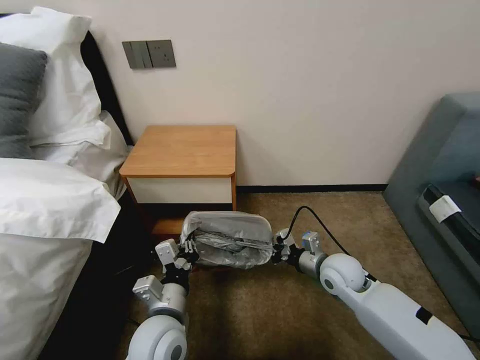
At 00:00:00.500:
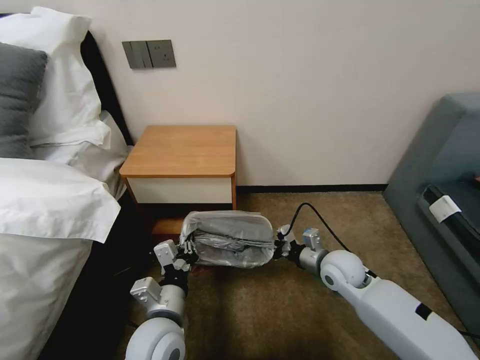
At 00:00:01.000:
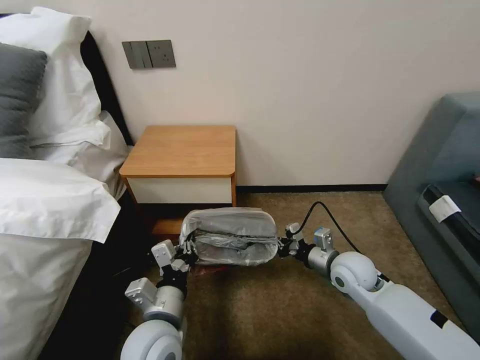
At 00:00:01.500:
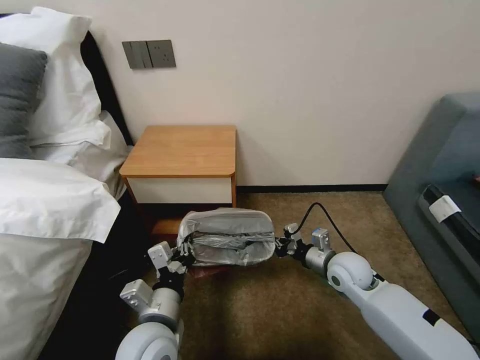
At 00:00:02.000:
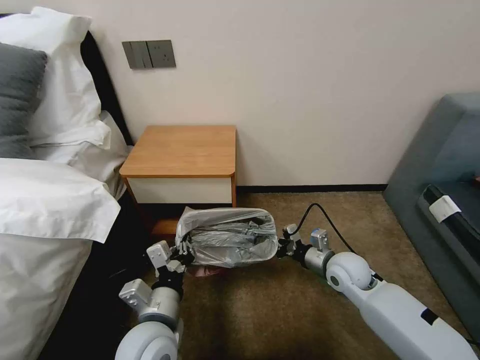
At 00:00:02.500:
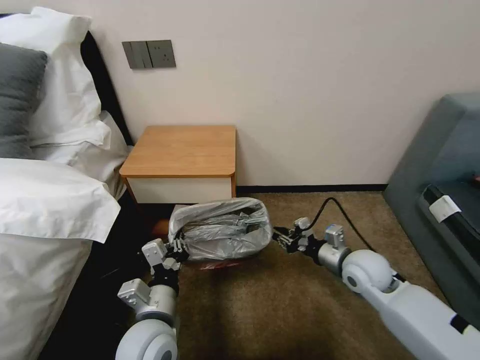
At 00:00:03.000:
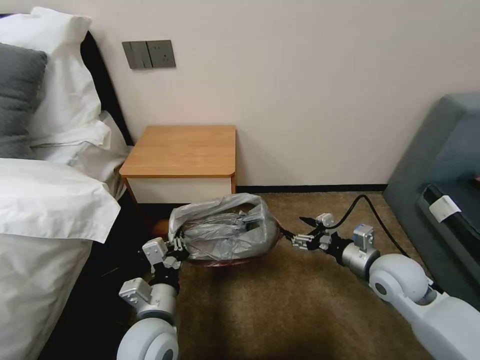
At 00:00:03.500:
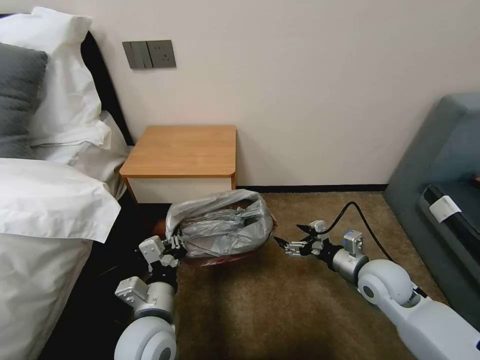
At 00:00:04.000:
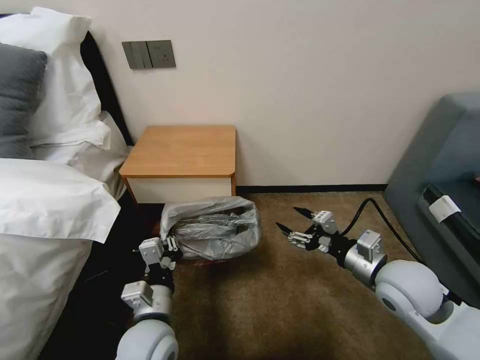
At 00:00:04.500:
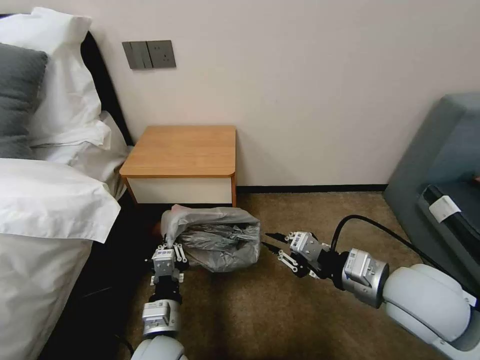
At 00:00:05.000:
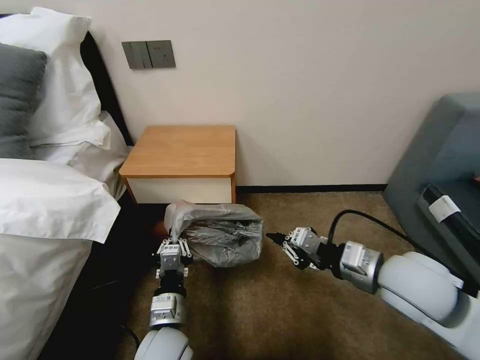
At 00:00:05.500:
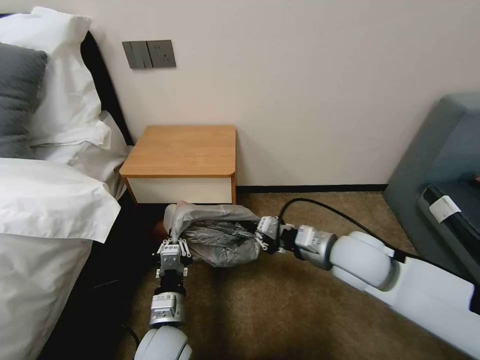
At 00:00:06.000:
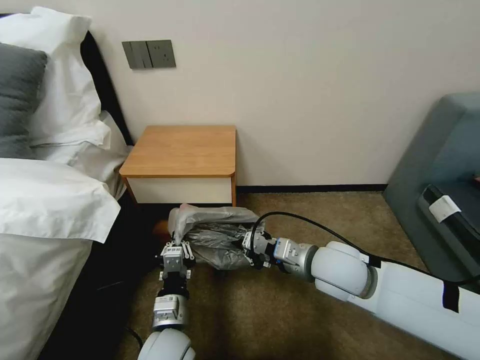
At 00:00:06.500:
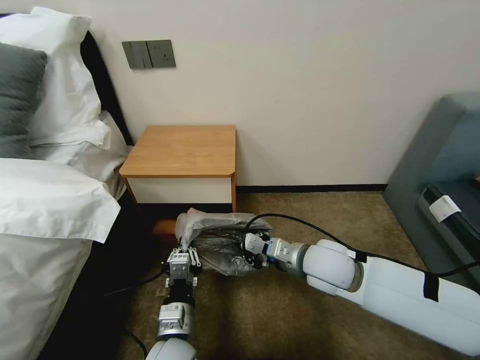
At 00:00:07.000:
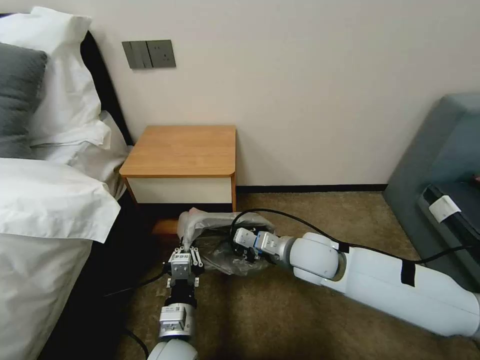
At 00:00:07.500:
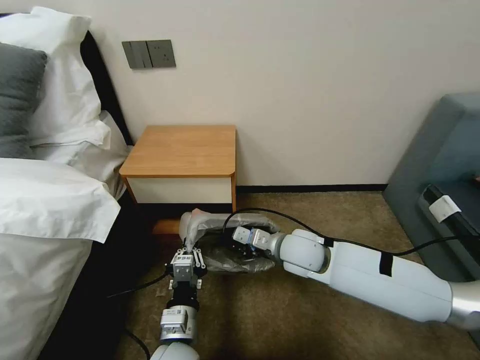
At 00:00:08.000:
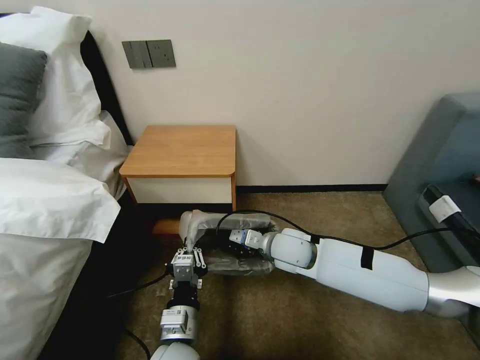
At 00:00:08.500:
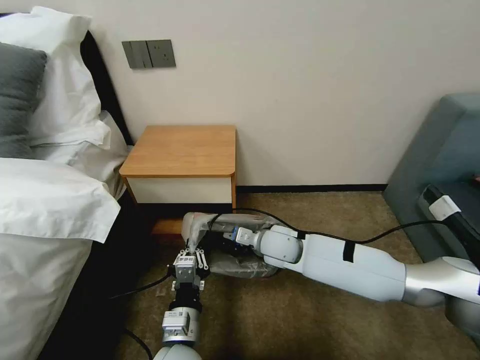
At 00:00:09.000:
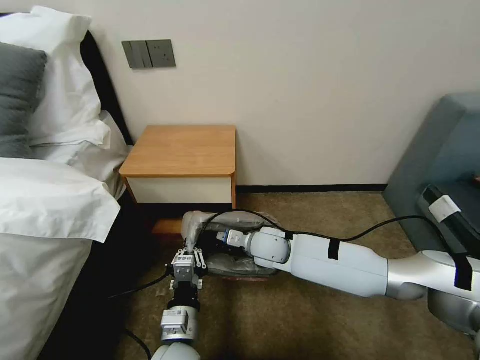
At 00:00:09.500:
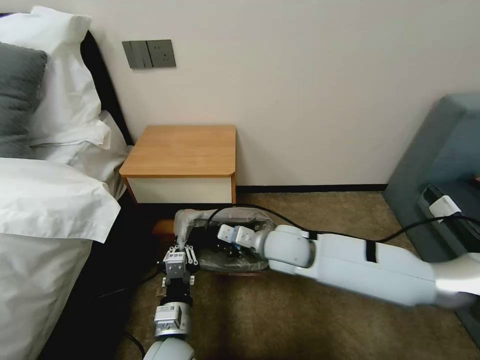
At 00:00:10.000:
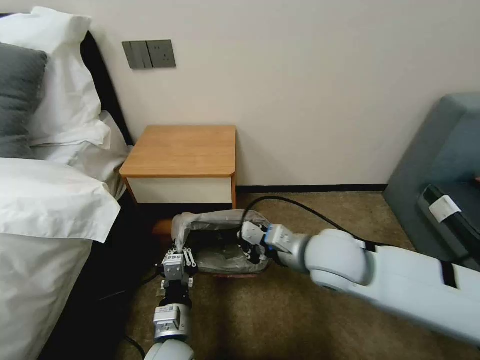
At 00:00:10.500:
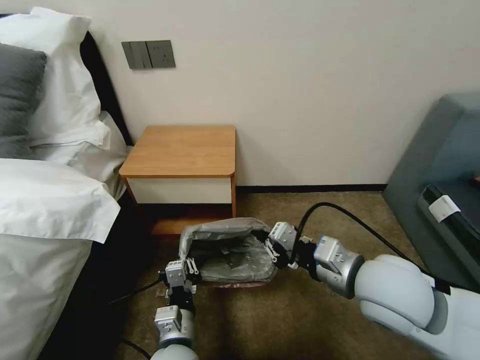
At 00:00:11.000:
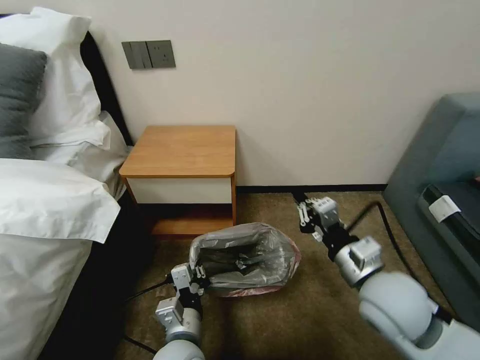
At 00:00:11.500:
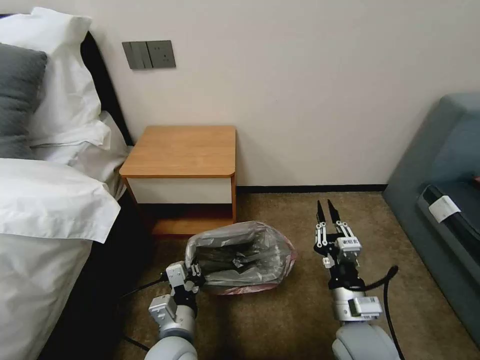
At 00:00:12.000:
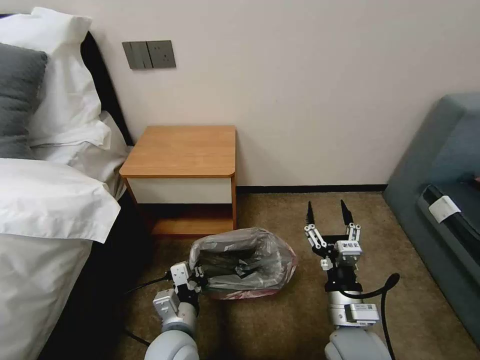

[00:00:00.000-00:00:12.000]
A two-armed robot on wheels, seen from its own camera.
Task of the whole recording: Pick up the garbage bag from the table and place it over the trash can.
00:00:00.000 to 00:00:02.000: The grippers stay close to where they were, moving slightly.
00:00:02.000 to 00:00:04.000: The right gripper is displaced upward and backward by some 15 cm, and opens its fingers.
00:00:04.000 to 00:00:06.000: The right gripper travels to the left by approximately 10 cm, and closes up. The left gripper shifts by some 5 cm.
00:00:06.000 to 00:00:08.000: The right gripper shifts approximately 10 cm forward, downward and to the left.
00:00:08.000 to 00:00:10.000: The right gripper heads upward and backward, covering some 15 cm.
00:00:10.000 to 00:00:12.000: The right gripper travels backward and downward by about 20 cm, and opens its fingers.

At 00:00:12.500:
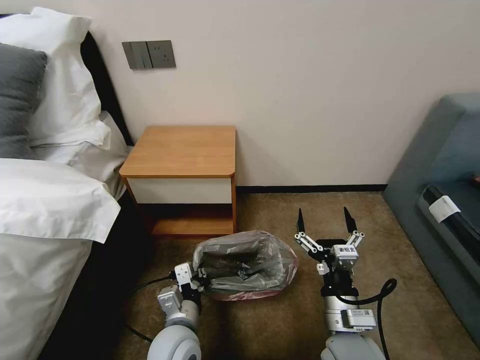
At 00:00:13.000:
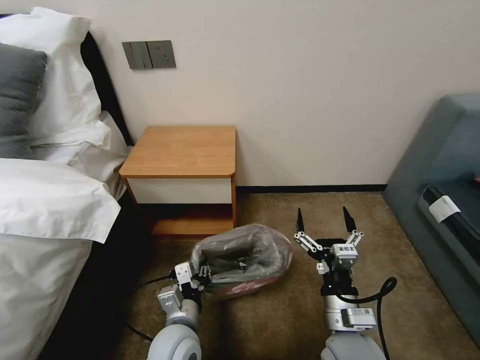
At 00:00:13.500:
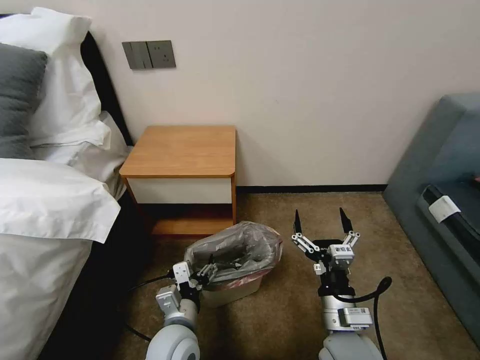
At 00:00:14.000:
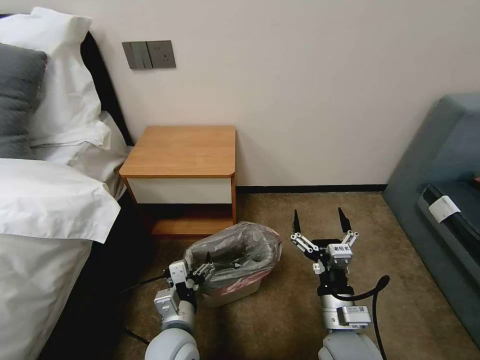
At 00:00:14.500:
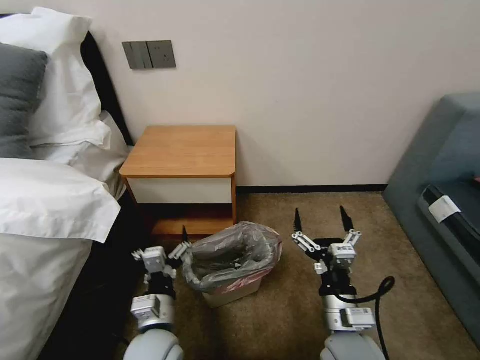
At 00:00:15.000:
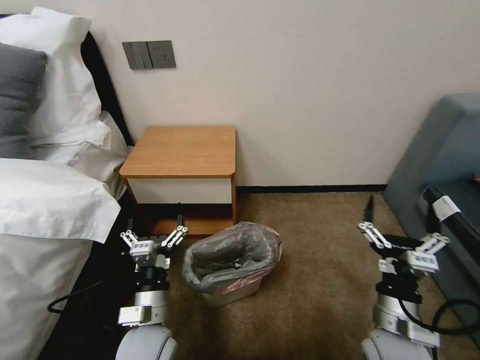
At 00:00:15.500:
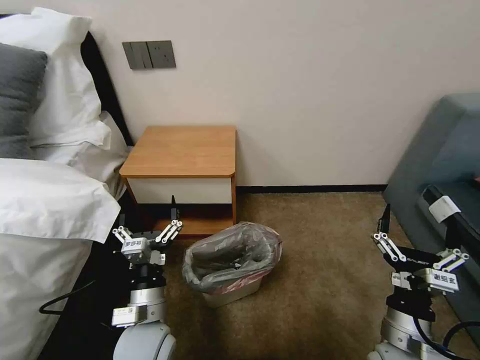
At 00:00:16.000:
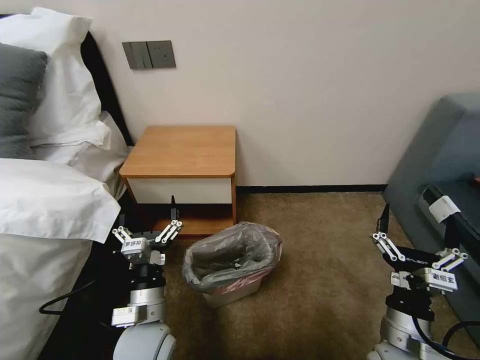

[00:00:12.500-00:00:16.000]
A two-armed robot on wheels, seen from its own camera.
Task of the whole recording: Pick up the garbage bag from the table and place it over the trash can.
00:00:12.500 to 00:00:14.500: The left gripper opens up.
00:00:14.500 to 00:00:16.000: The right gripper shifts some 10 cm to the right.

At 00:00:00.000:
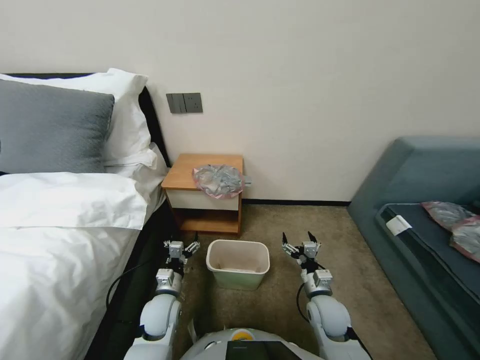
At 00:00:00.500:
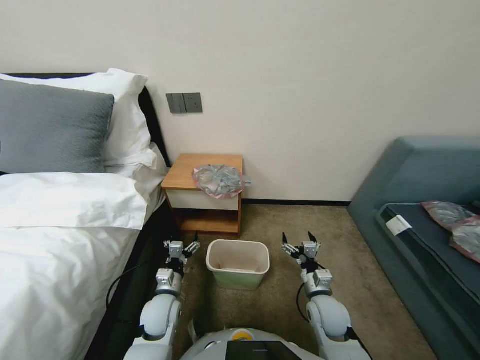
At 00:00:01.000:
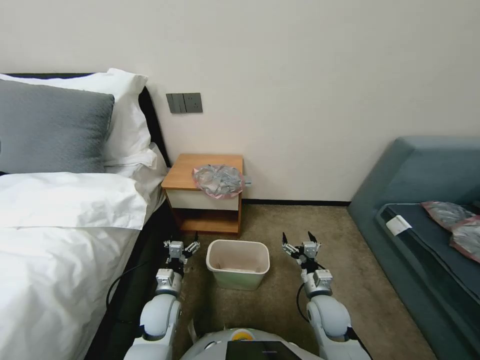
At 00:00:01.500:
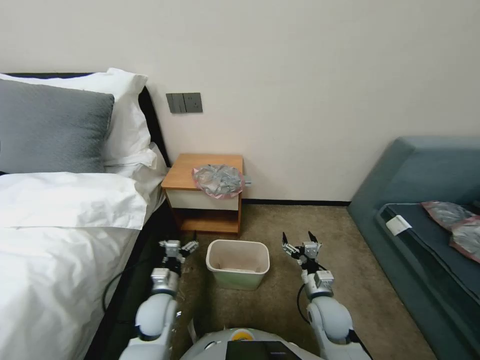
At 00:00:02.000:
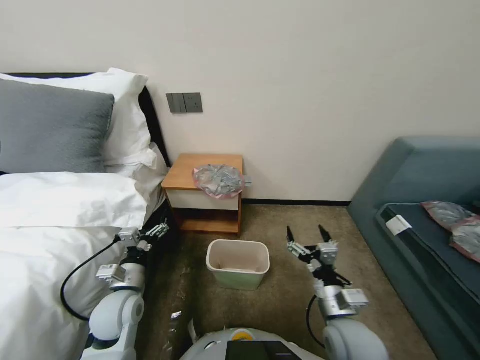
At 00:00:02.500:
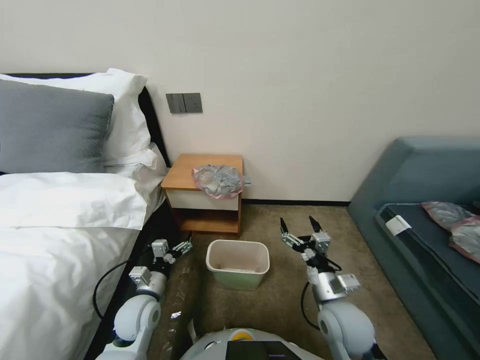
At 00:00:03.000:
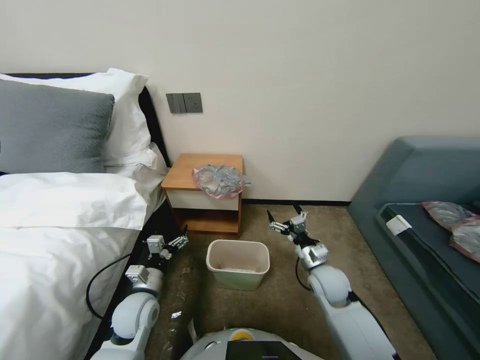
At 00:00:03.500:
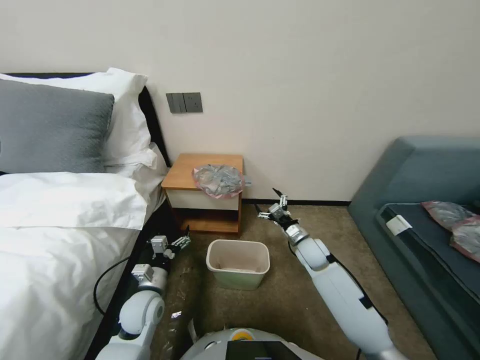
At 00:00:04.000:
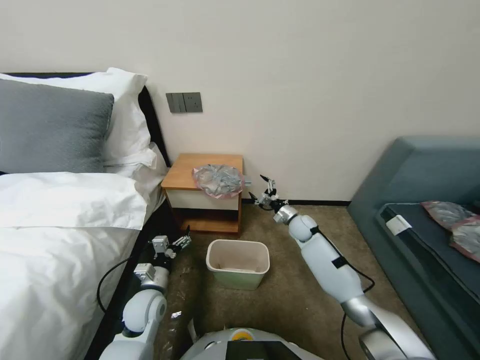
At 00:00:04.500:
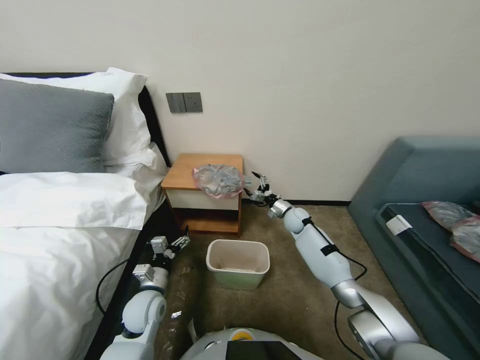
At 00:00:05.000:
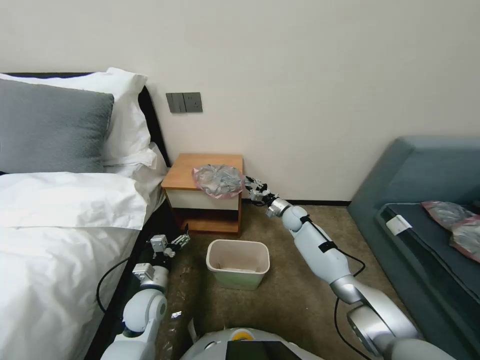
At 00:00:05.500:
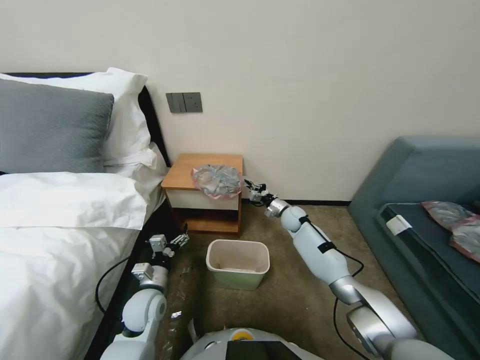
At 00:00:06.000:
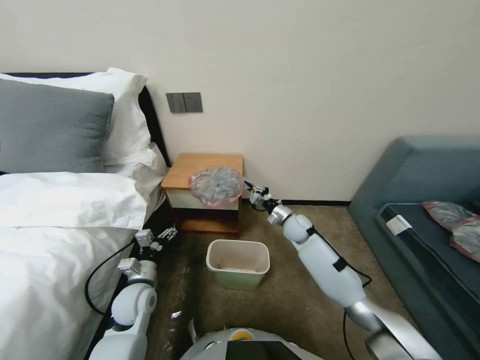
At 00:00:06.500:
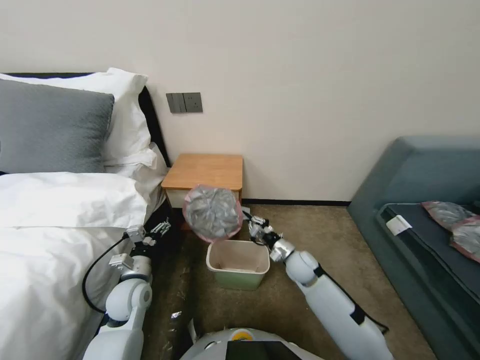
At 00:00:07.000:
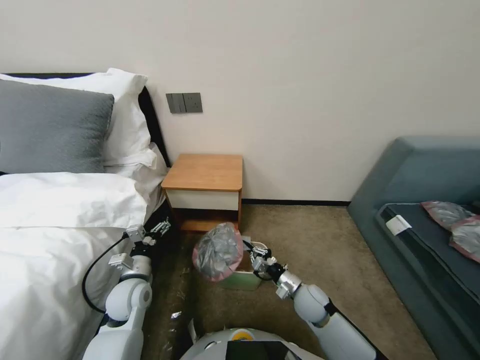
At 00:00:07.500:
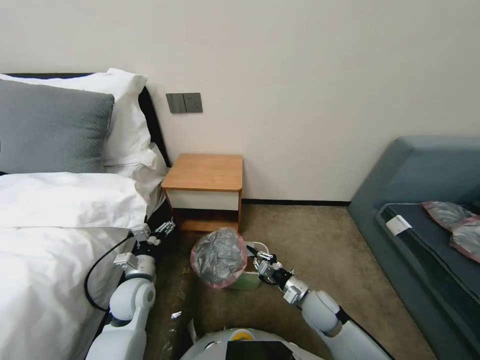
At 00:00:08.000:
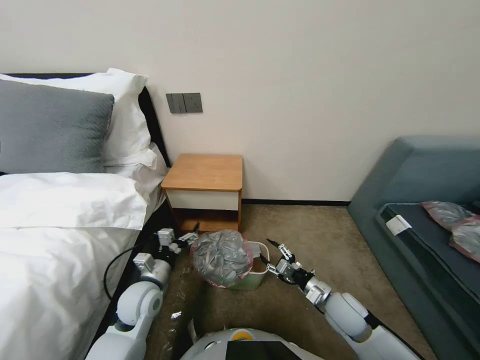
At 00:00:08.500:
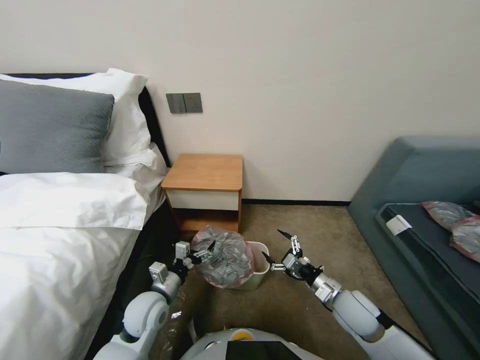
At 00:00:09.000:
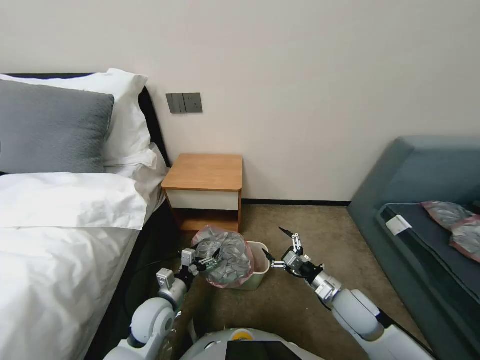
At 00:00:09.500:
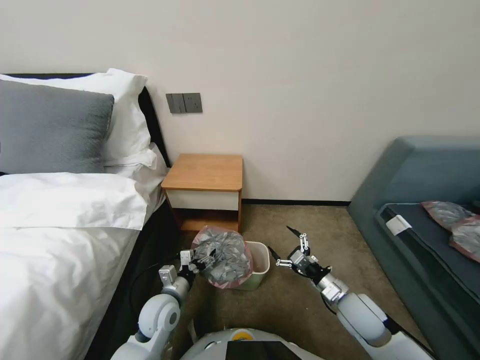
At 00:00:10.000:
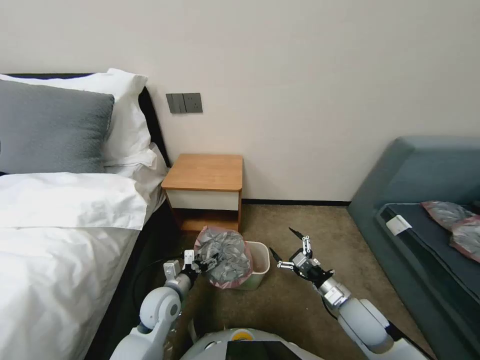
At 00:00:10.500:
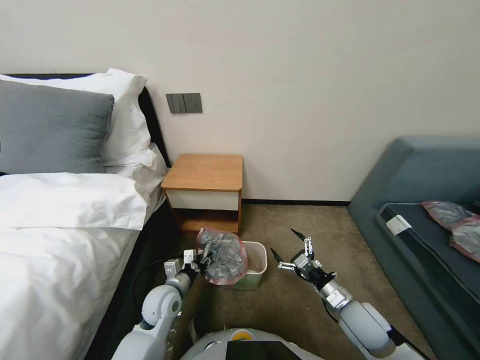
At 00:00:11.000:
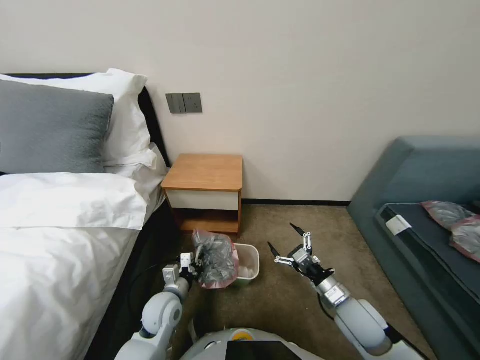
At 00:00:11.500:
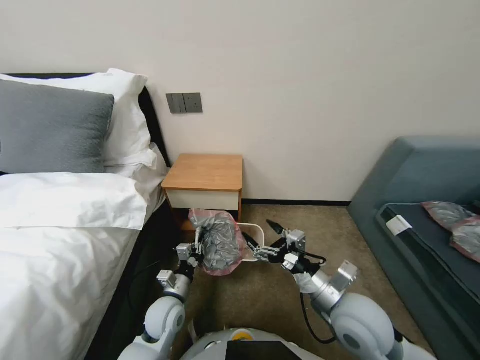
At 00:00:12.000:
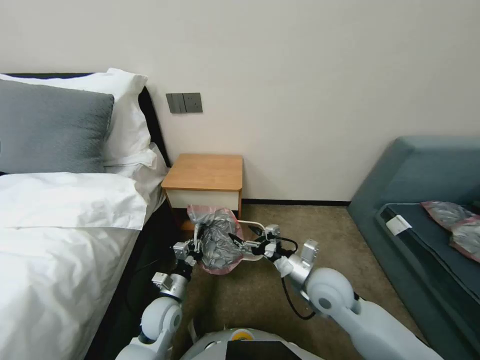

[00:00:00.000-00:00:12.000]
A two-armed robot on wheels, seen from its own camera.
Task of the whole recording: Pick up the garbage bag from the table and place it over the trash can.
00:00:02.000 to 00:00:04.000: The left gripper moves downward, approximately 5 cm. Meanwhile the right gripper travels forward by approximately 30 cm.
00:00:04.000 to 00:00:06.000: The right gripper closes its fingers.
00:00:06.000 to 00:00:08.000: The right gripper is displaced backward by roughly 25 cm, and opens its fingers.
00:00:08.000 to 00:00:10.000: The right gripper opens up, while the left gripper heads to the right, covering roughly 5 cm.
00:00:10.000 to 00:00:12.000: The left gripper closes up. The right gripper goes about 15 cm upward and to the left.
